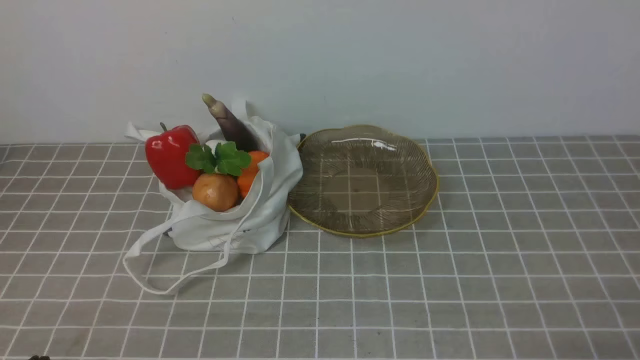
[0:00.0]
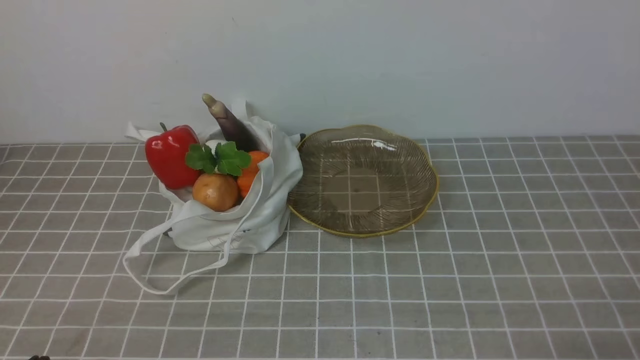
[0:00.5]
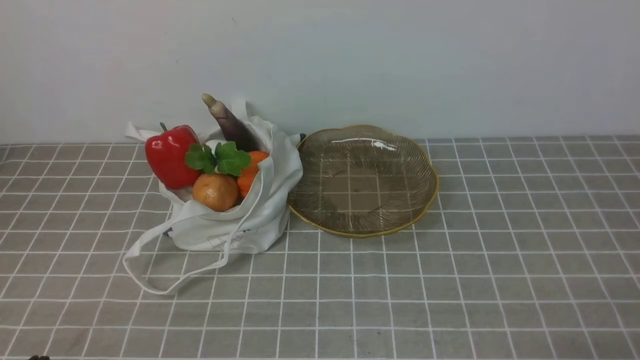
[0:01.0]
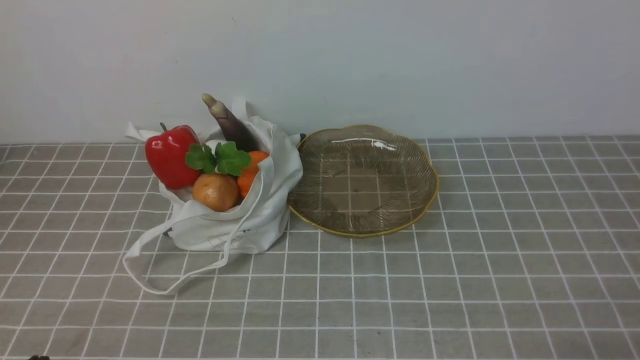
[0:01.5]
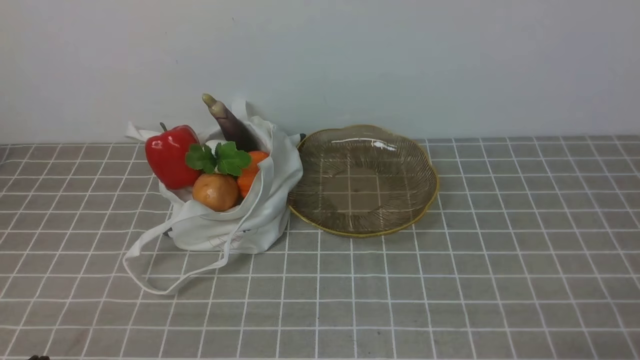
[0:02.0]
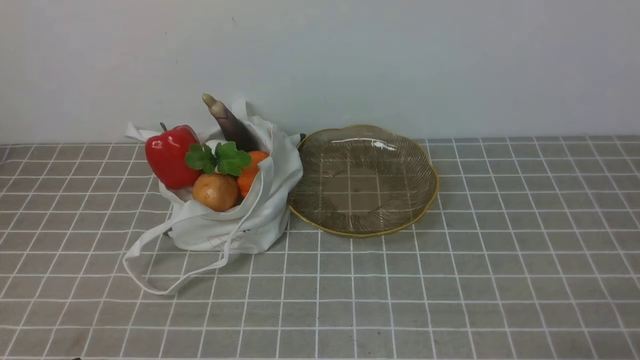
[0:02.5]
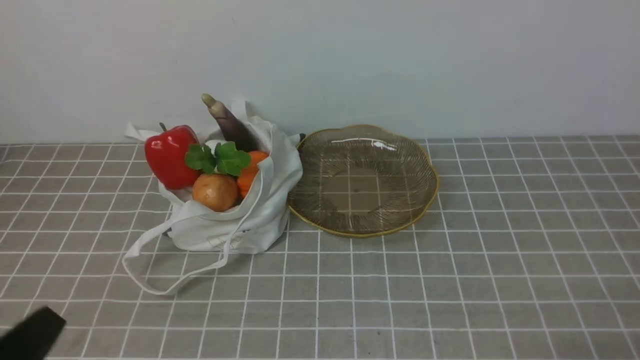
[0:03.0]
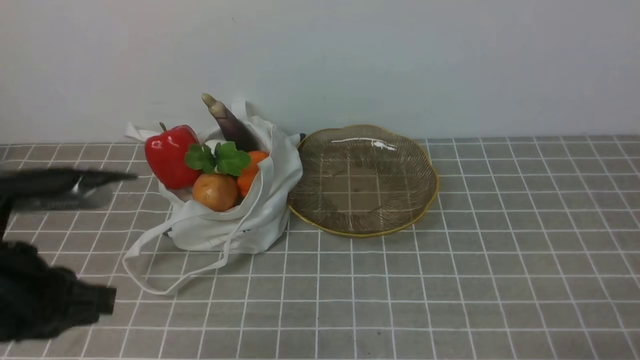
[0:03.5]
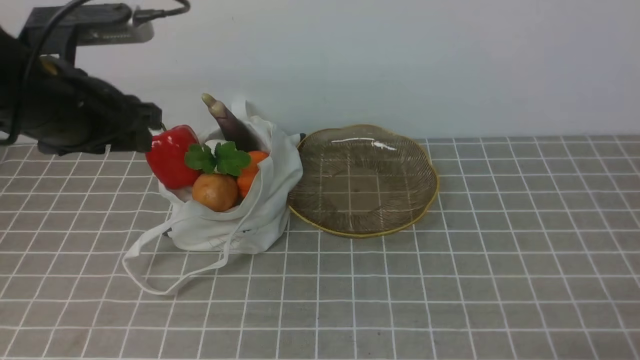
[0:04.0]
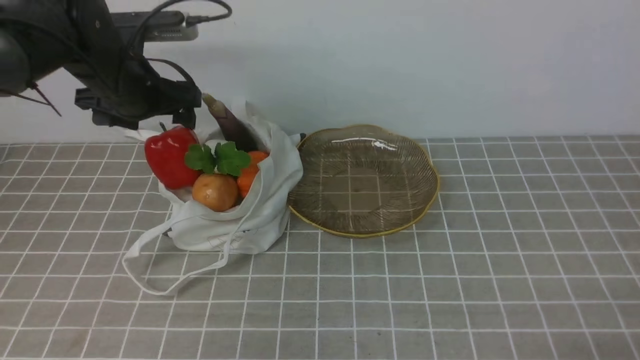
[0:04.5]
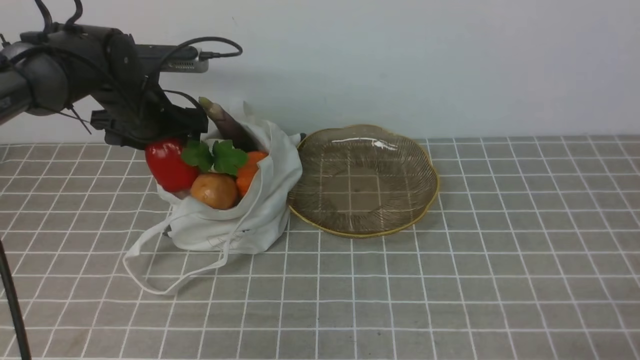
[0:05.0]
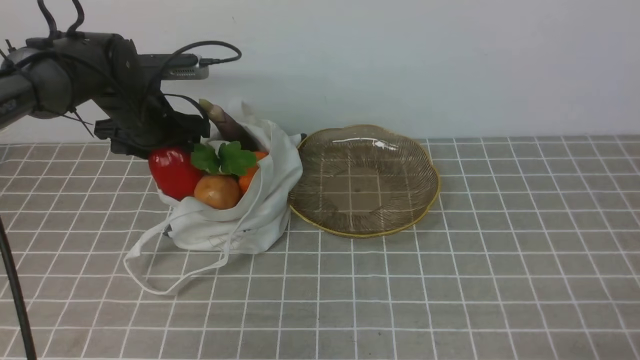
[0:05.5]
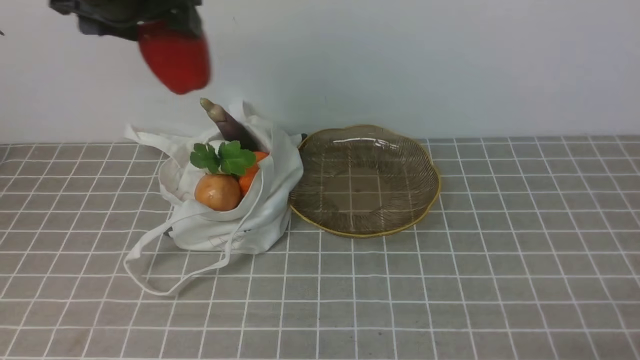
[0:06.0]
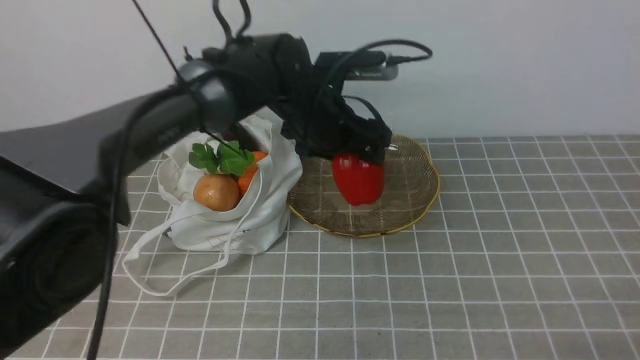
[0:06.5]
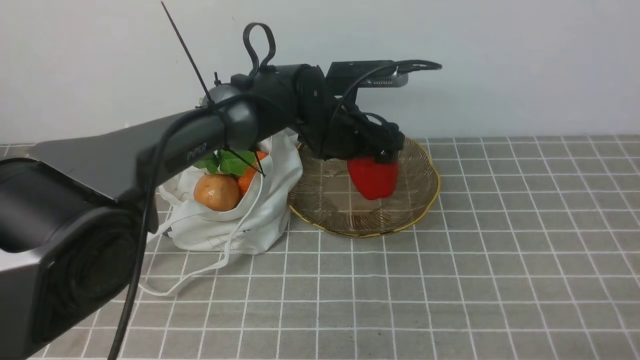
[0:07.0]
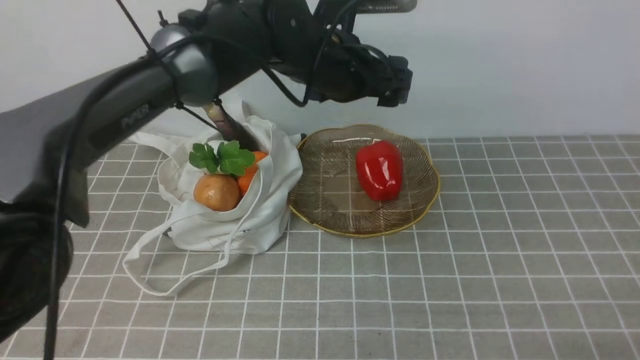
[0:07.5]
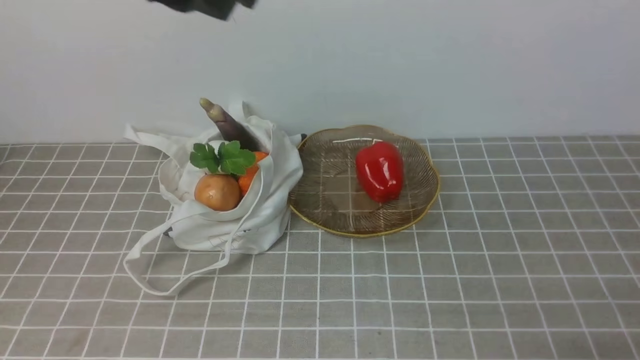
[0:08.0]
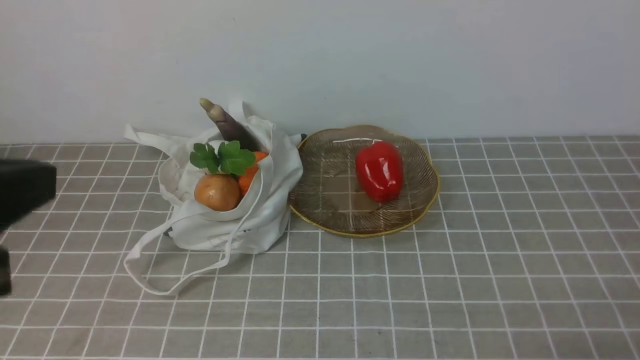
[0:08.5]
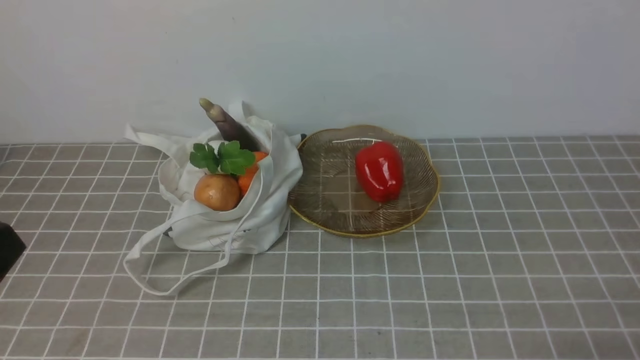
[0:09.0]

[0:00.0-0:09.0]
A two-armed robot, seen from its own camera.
Task of the whole recording: take vegetables from bag on grey coffee tablecloth place on plate.
Step, 0:00.0 to 0:05.0: Grasp the bell pepper with left gripper.
Step, 0:05.5 to 0:07.0: Place the bell pepper on the plate with left gripper.
0:00.0 to 0:02.0: Neither gripper changes place.
0:02.0 to 0:04.5: The left gripper heads forward, covering roughly 40 cm, and opens its fingers.
0:04.5 to 0:07.0: The left gripper shifts about 25 cm to the right.
0:07.0 to 0:09.0: The left gripper goes approximately 50 cm backward and to the left, and closes its fingers.

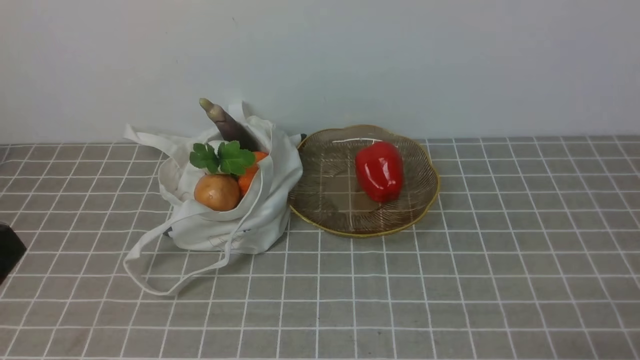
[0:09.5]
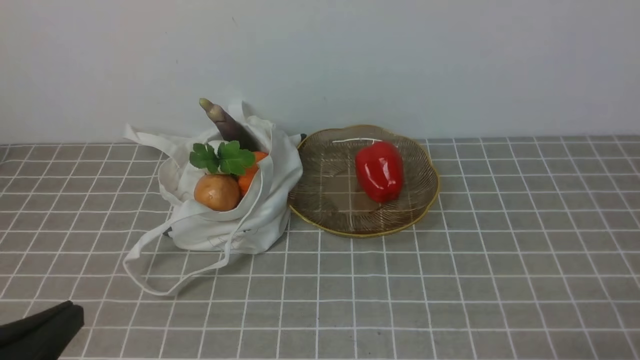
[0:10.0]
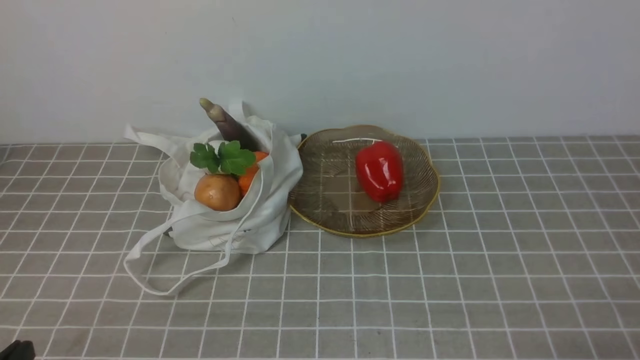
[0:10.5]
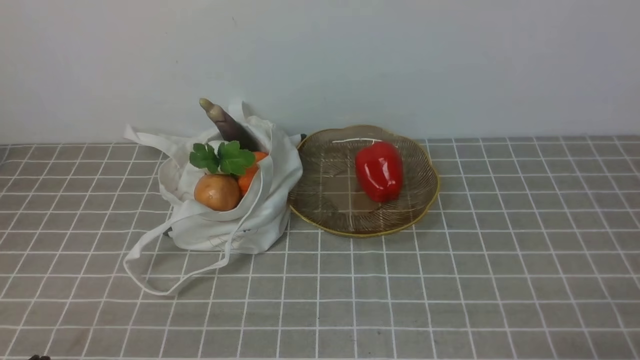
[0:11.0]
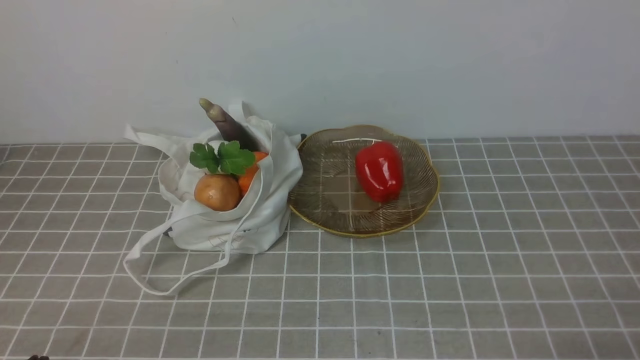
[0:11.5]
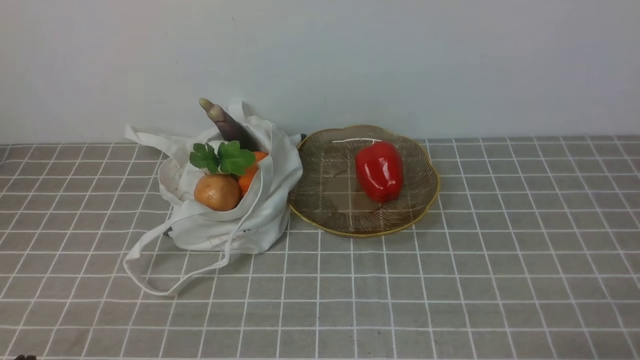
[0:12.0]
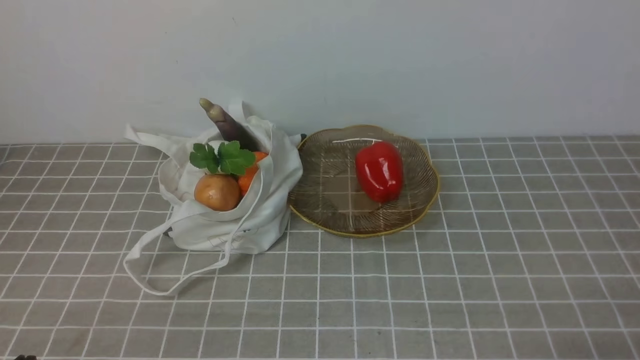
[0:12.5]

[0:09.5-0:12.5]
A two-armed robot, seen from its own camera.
Task of the whole recording: take vegetables from bag on grey coffee tablecloth place on plate.
0:11.0 to 0:12.5: The two grippers keep their place.
